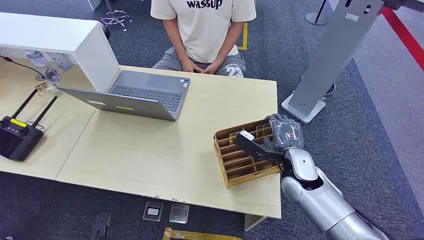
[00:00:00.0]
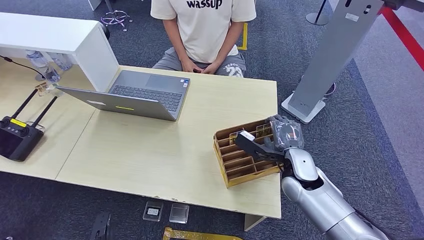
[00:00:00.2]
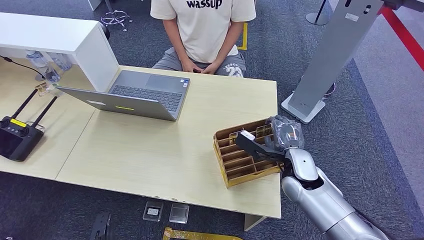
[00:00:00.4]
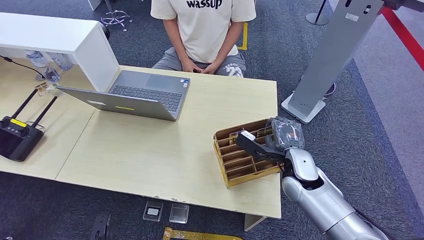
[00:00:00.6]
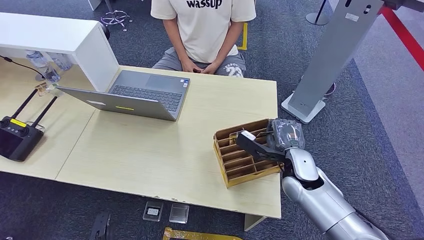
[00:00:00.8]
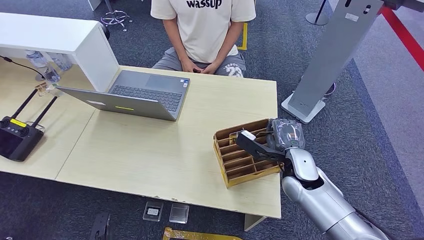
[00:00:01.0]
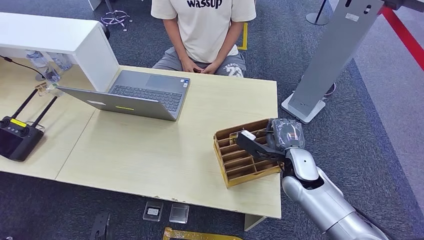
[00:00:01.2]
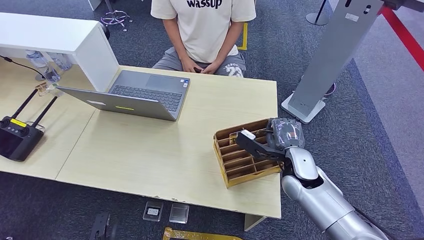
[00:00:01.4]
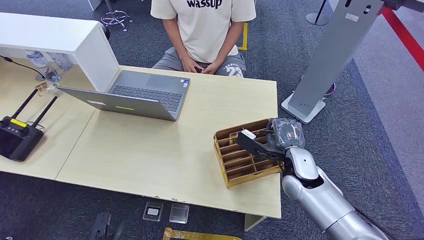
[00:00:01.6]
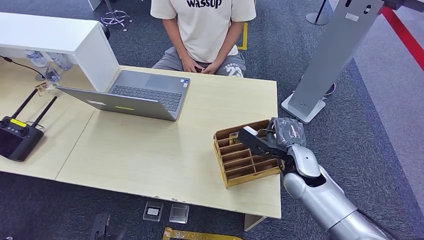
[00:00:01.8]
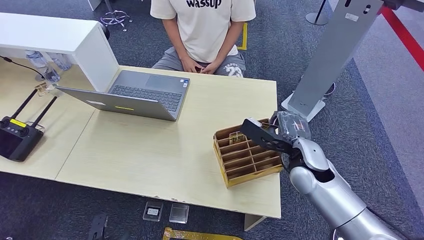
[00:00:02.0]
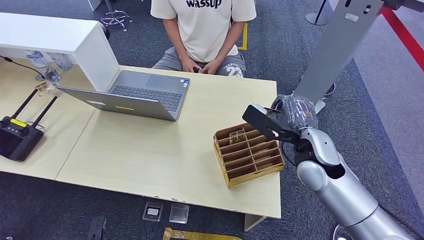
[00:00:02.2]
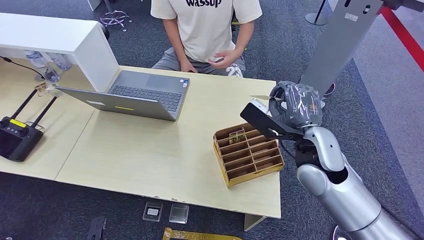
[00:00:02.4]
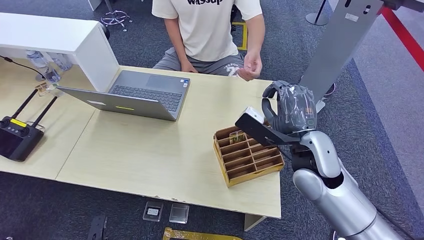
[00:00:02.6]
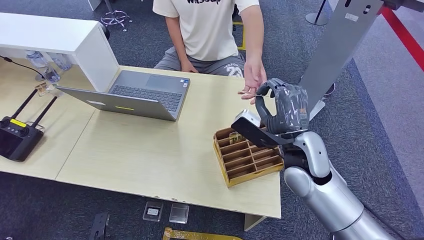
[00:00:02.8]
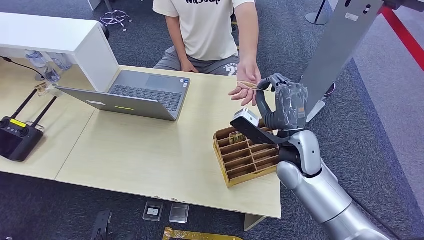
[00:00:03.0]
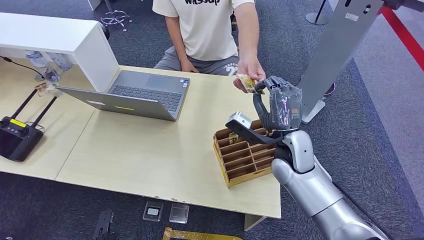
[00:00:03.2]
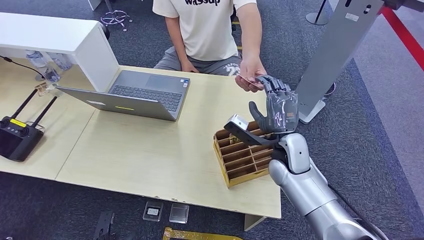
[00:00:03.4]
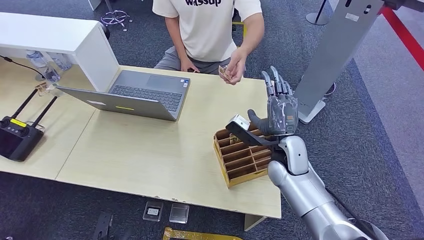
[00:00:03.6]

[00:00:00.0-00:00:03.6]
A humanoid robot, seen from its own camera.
Step, 00:00:00.0 to 00:00:02.0: Pick up the room card from the card holder.
Step, 00:00:02.4 to 00:00:03.6: Hand the room card to the target.
00:00:01.8 to 00:00:03.6: The right hand travels upward and back again, roughly 10 cm each way.
